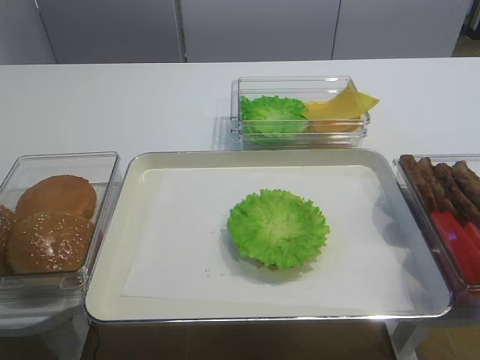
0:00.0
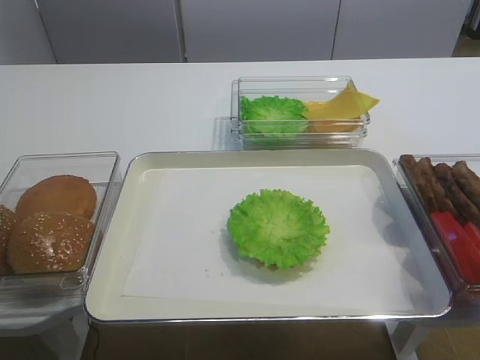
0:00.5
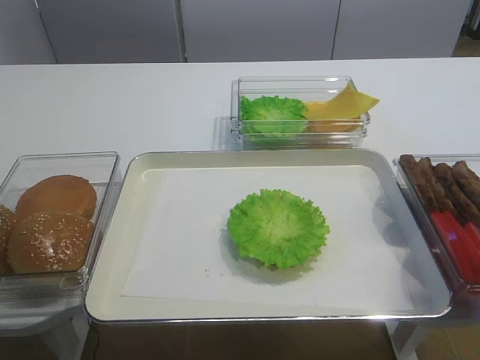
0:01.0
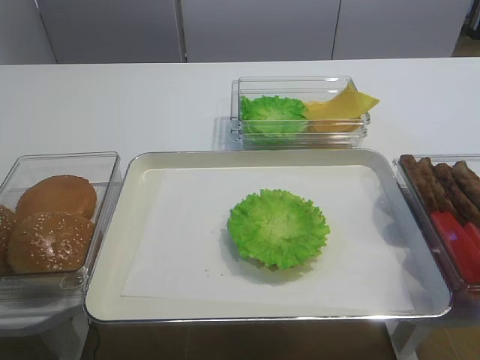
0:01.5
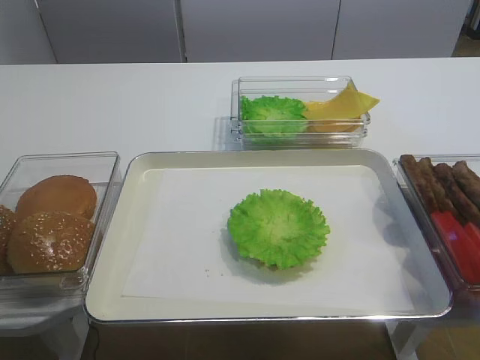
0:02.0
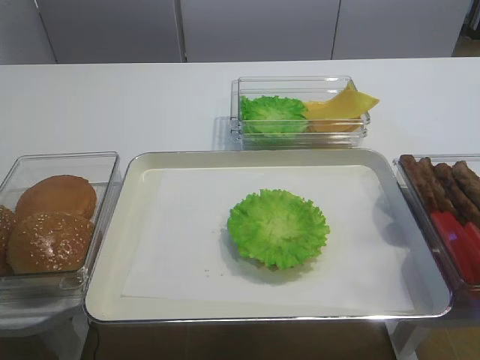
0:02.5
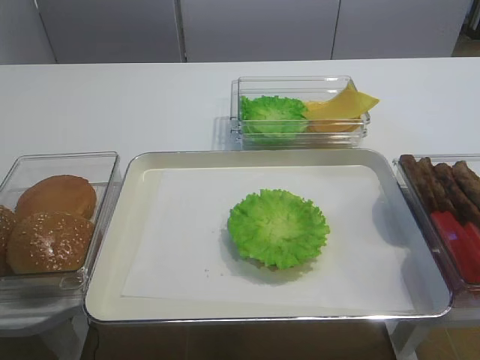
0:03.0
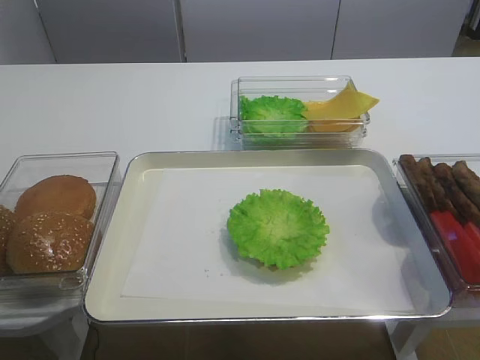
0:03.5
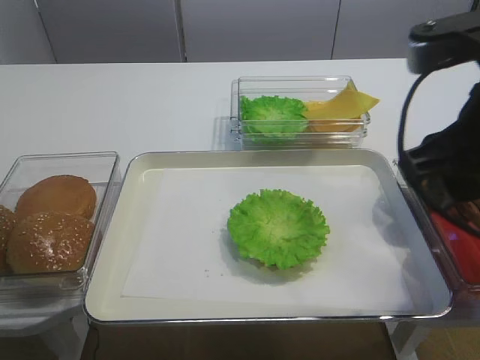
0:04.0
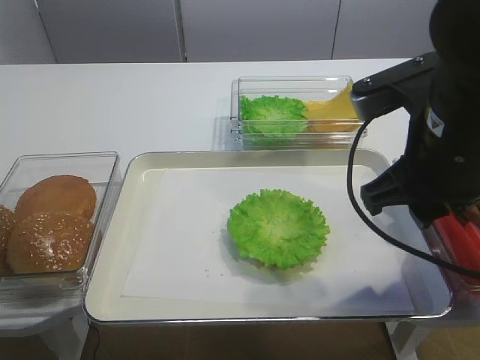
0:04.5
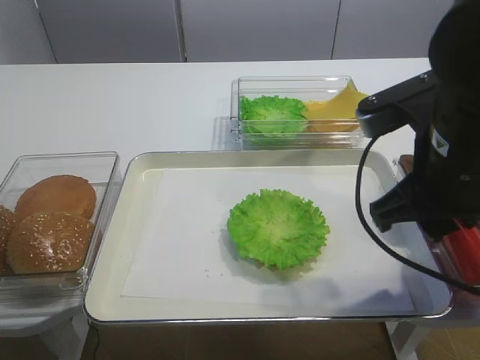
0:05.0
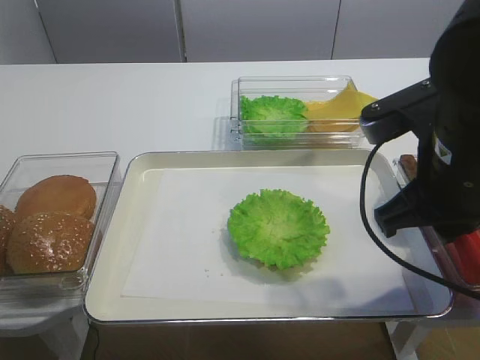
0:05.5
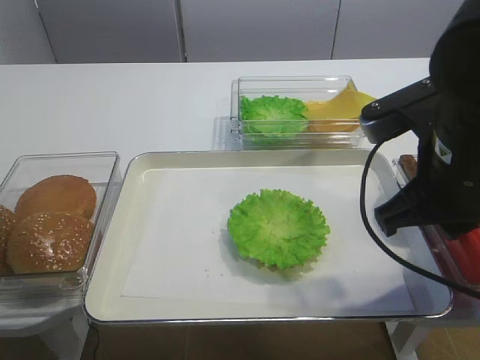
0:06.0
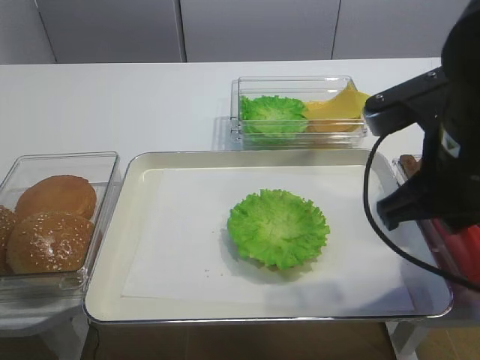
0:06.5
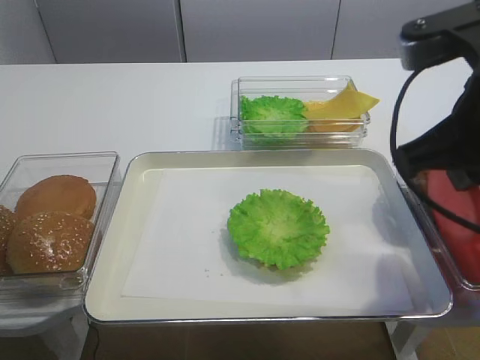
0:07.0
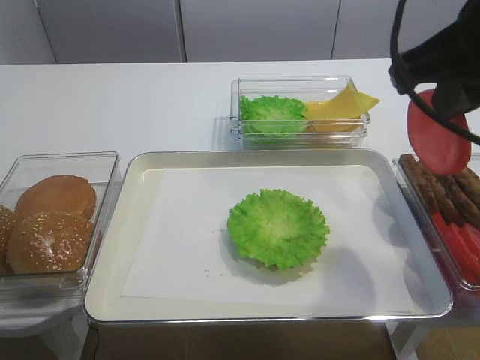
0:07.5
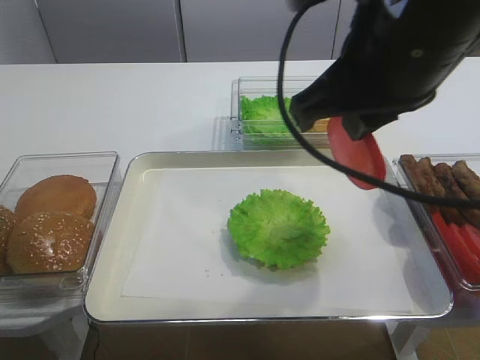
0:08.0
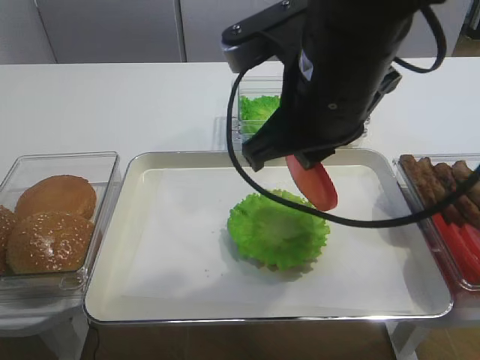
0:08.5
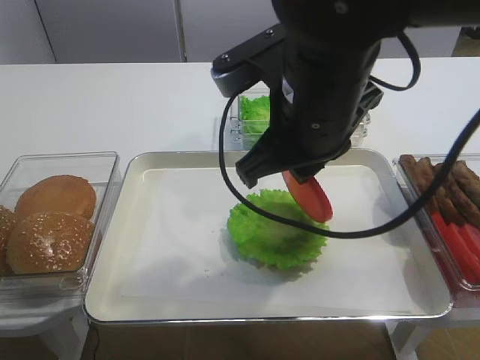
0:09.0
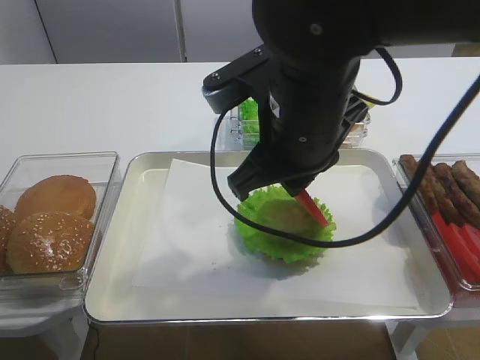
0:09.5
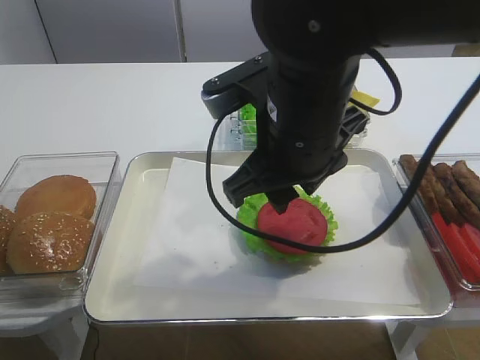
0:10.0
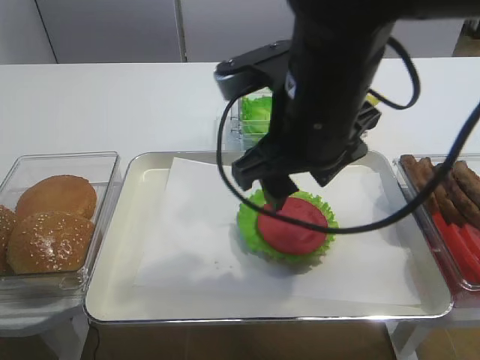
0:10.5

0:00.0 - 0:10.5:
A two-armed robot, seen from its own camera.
Step, 0:00.0 - 0:07.0: Pick up the tomato slice with the right gripper.
Step, 0:07.5 - 0:10.0: Place the tomato slice on the lettuce leaf with the right gripper.
0:02.0 - 0:04.0: The right gripper shifts about 20 cm forward and to the left.
0:04.0 - 0:06.5: The right gripper closes its fingers.
0:06.5 - 0:08.5: The right gripper shifts roughly 10 cm to the left.
0:08.5 - 0:10.5: The right gripper opens.

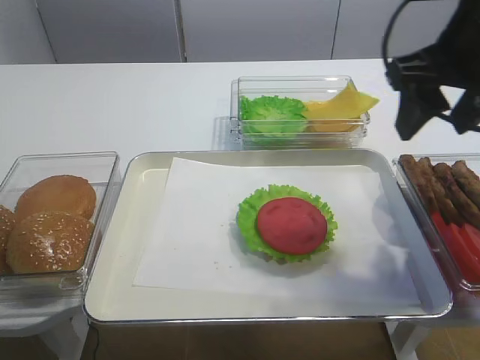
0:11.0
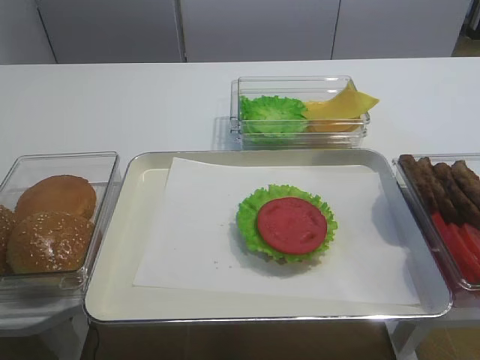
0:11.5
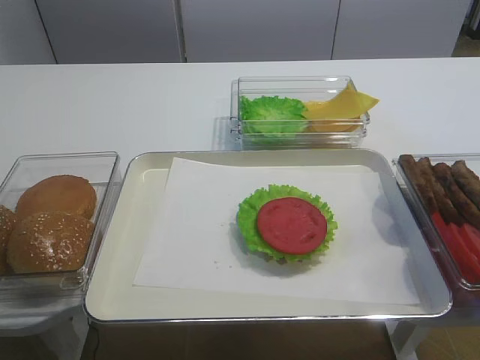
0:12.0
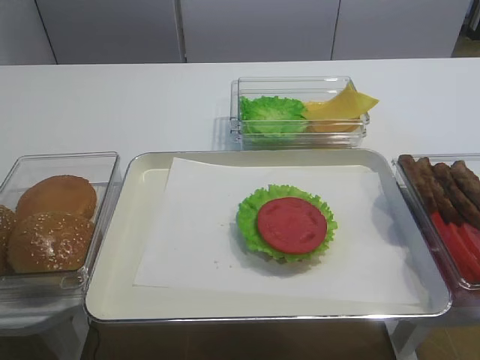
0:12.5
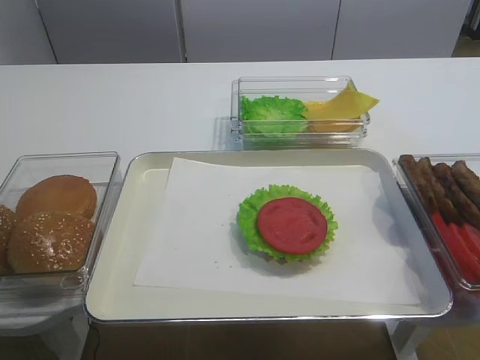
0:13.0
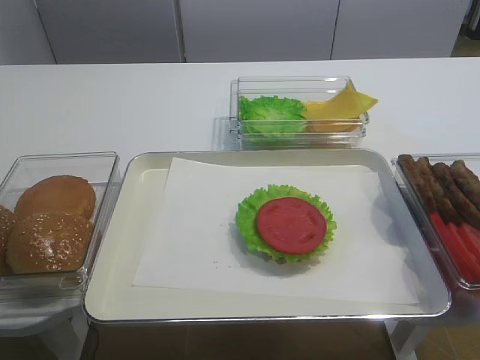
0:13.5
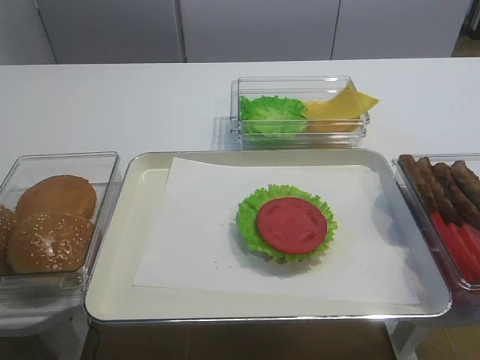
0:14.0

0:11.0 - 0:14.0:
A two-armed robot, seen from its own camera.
0:11.0 - 0:12.5: The right gripper shifts some 30 cm backward.
